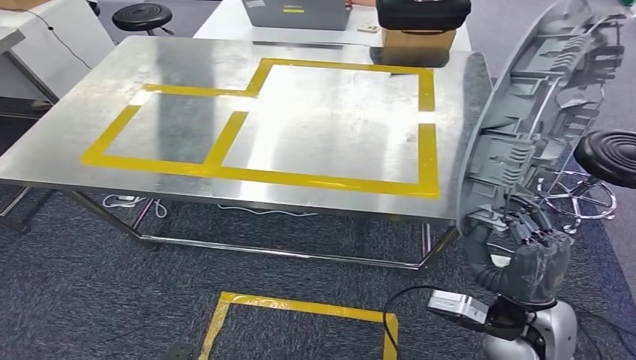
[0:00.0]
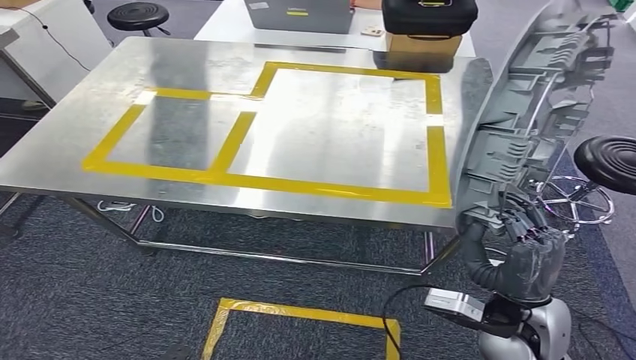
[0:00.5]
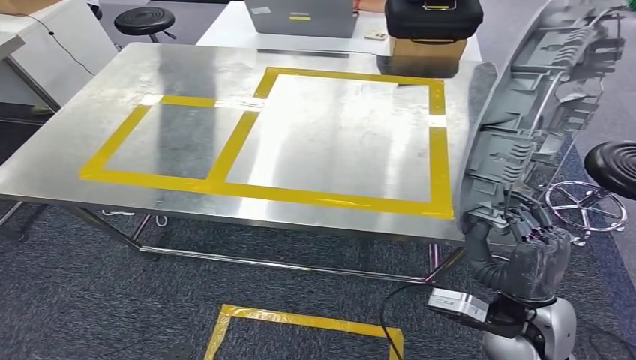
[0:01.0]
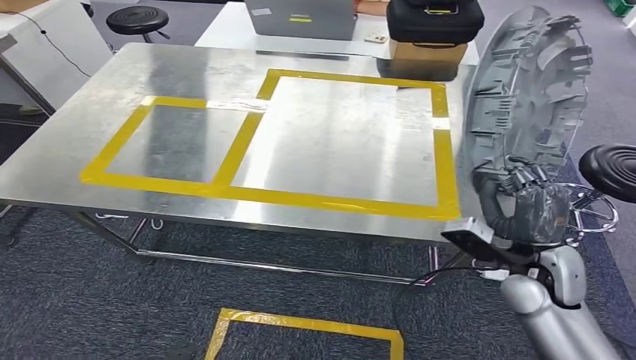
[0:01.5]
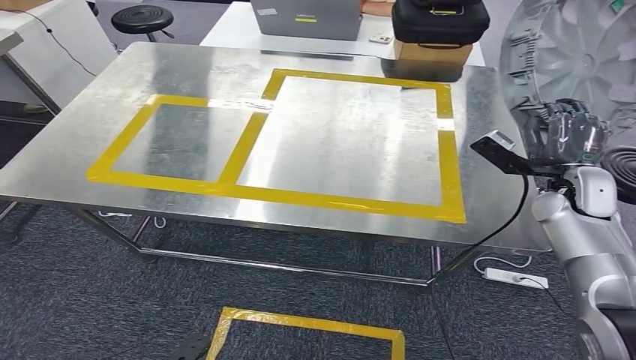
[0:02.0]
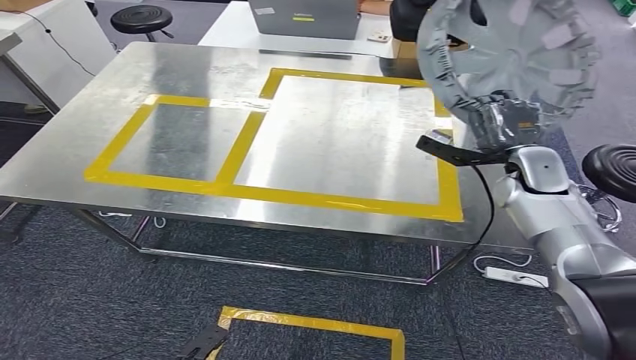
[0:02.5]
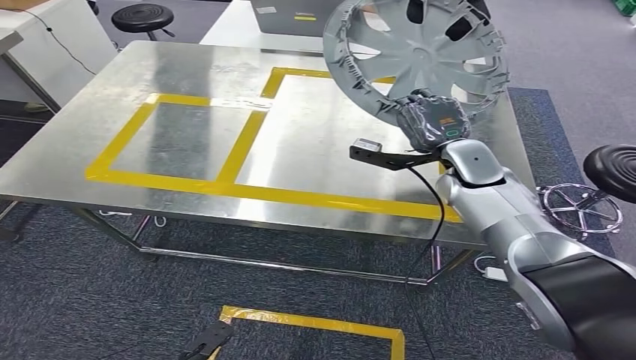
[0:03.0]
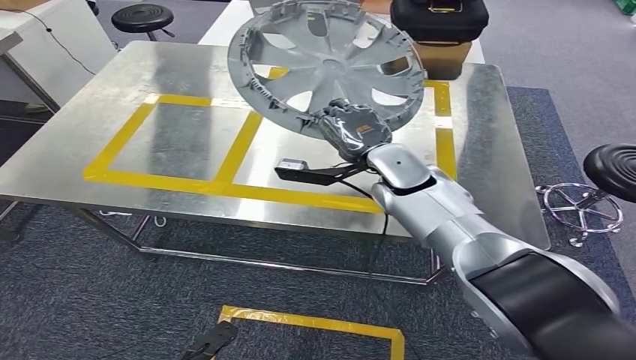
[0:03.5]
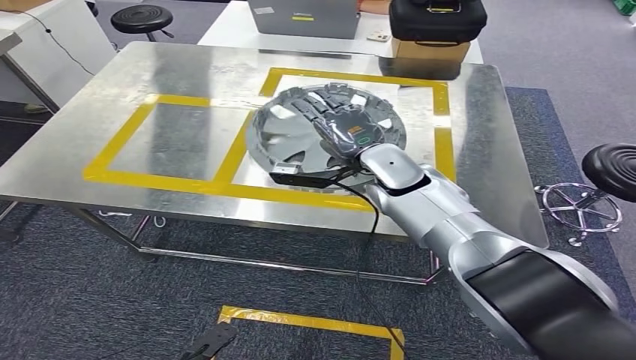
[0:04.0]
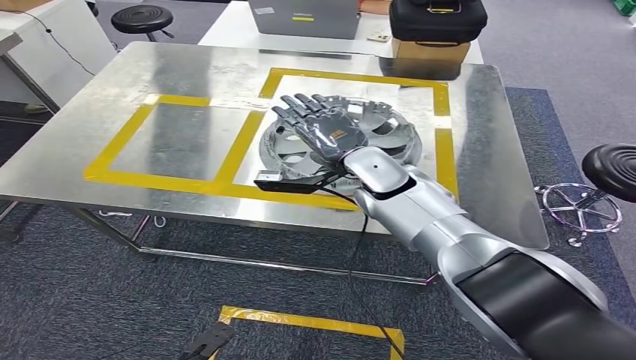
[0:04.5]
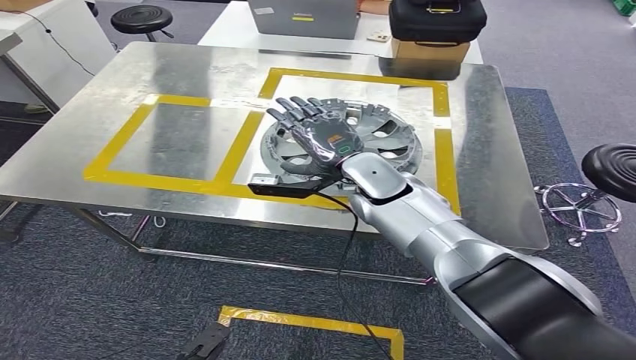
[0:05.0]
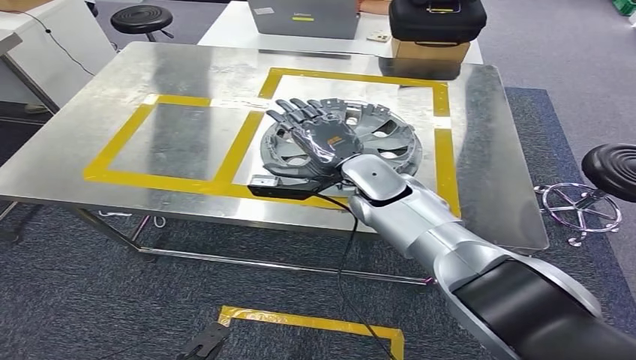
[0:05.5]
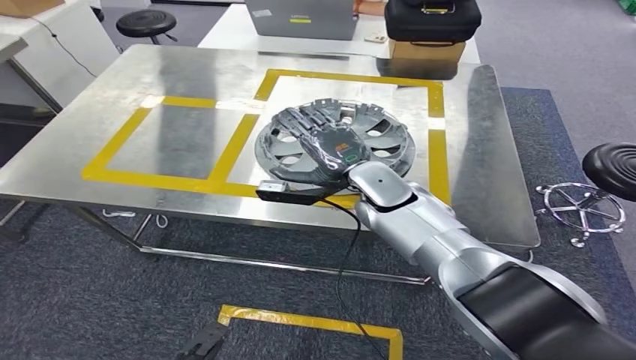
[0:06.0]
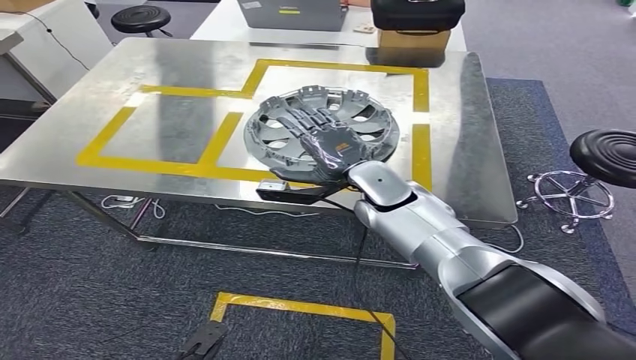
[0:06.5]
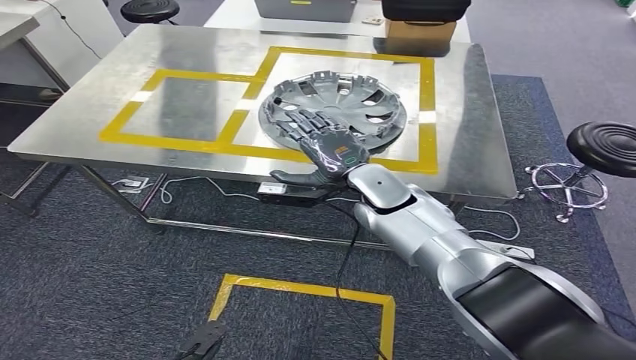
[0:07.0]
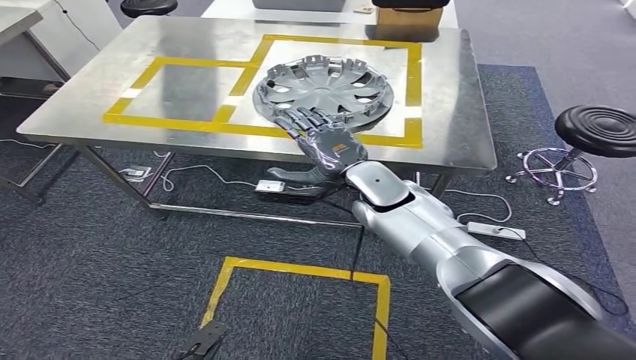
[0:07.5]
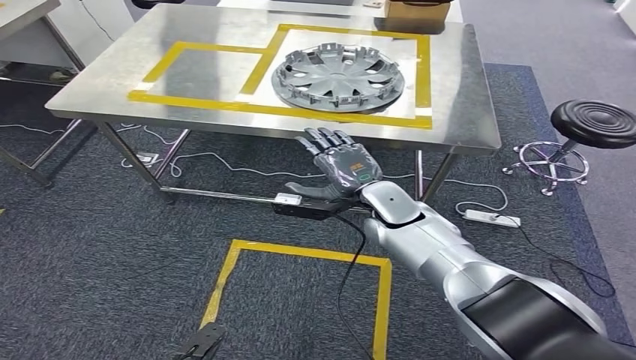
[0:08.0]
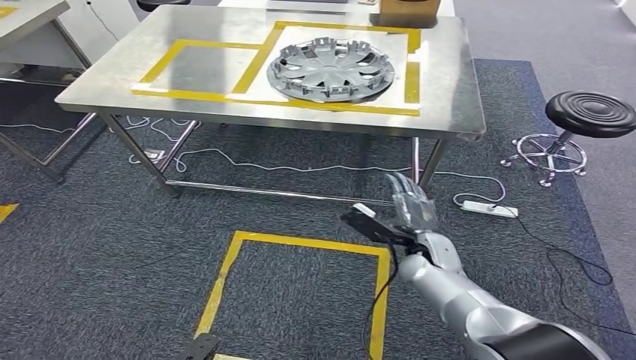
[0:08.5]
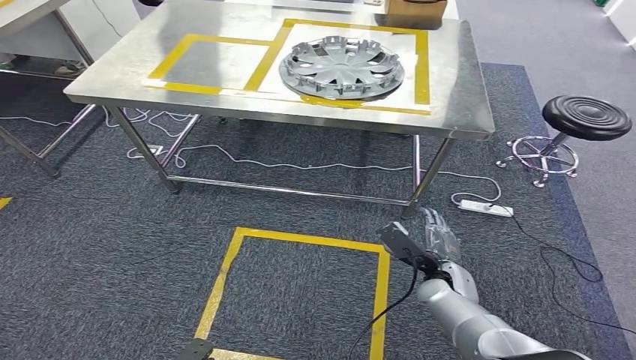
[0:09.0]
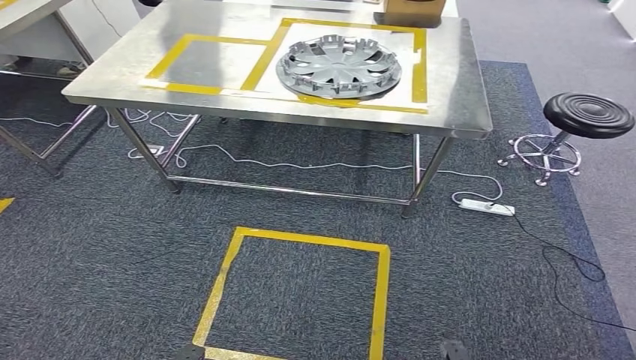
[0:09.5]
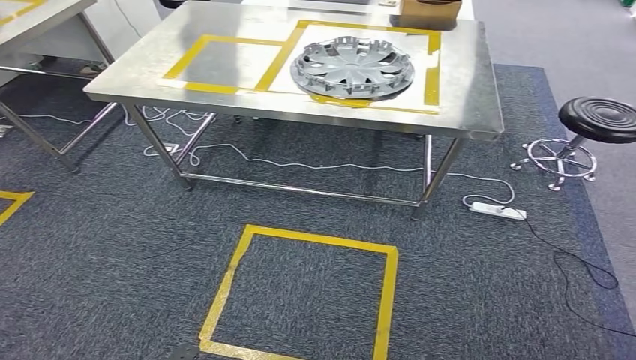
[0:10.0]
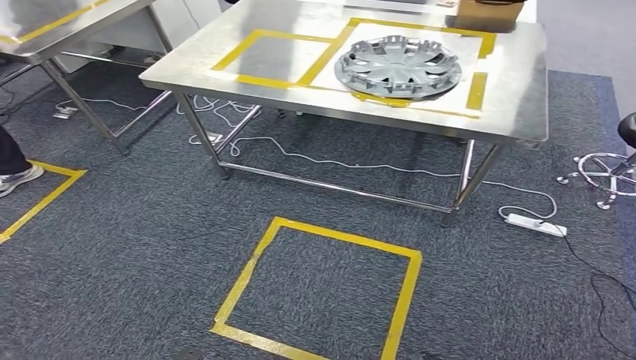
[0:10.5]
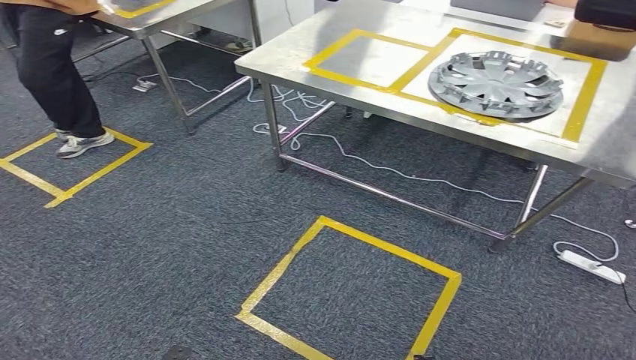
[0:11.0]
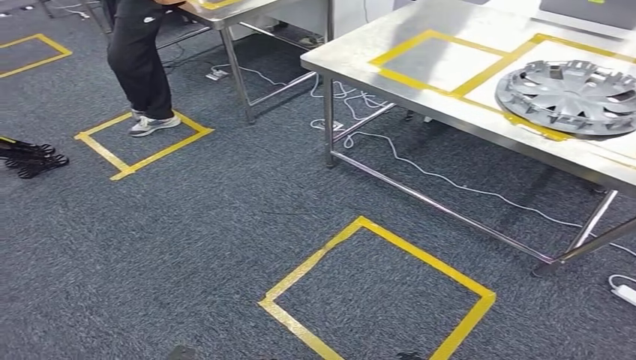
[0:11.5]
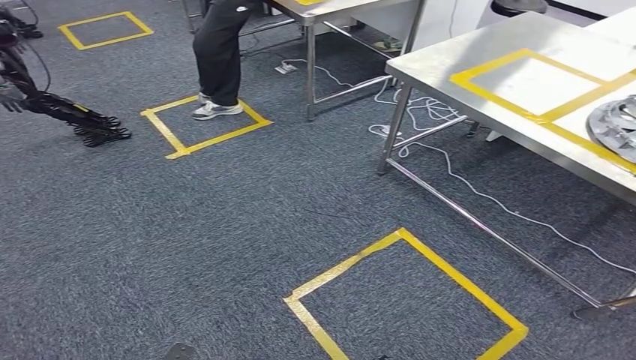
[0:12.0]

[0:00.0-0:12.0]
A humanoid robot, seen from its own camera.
Step, 0:00.0 to 0:02.0: Bring the small component to the front of the workbench.
Step, 0:02.5 to 0:10.5: Insert the small component into the corresponding slot on the workbench.

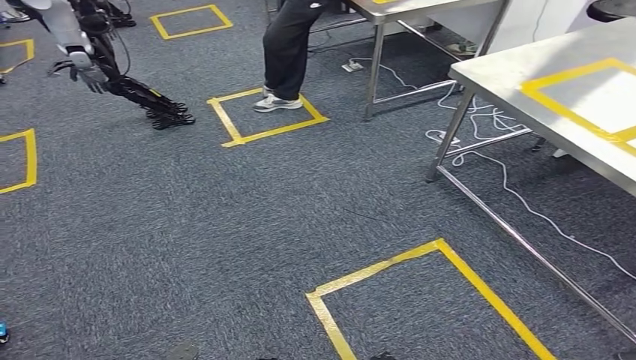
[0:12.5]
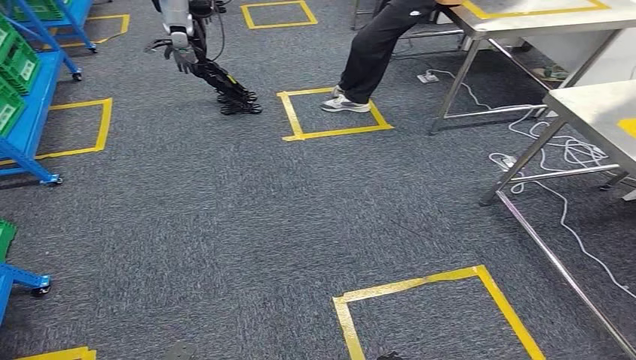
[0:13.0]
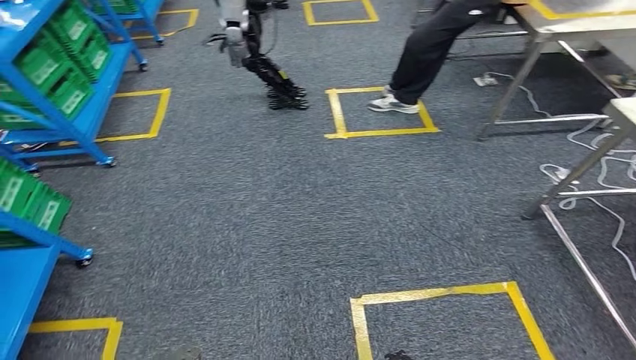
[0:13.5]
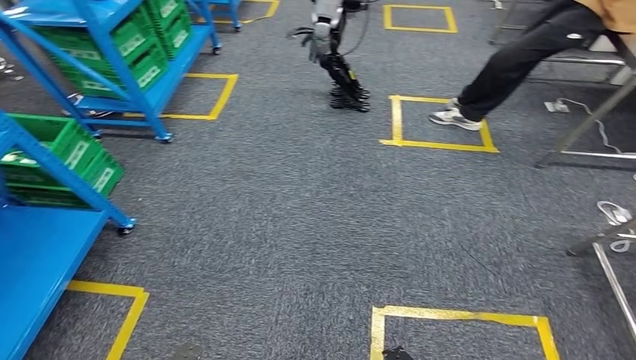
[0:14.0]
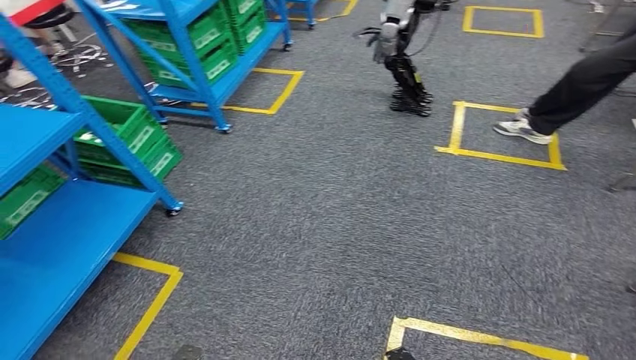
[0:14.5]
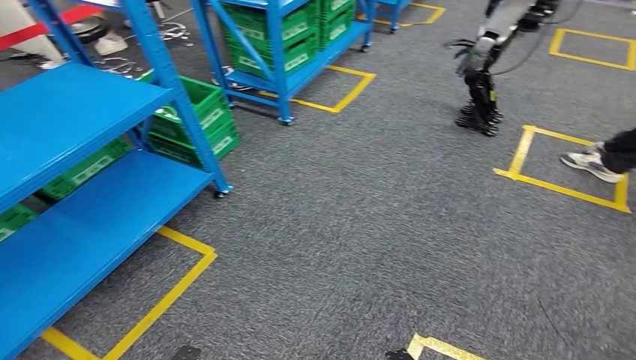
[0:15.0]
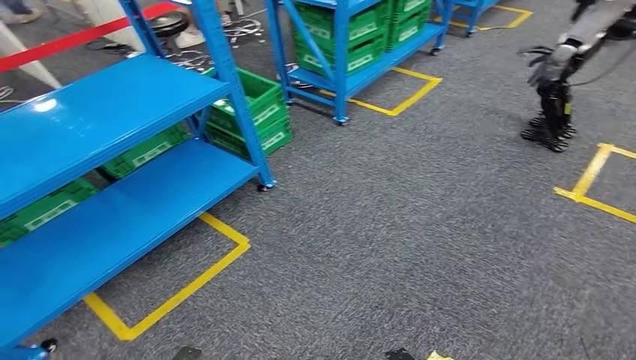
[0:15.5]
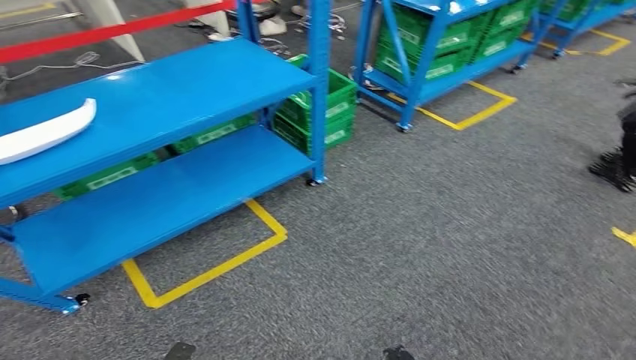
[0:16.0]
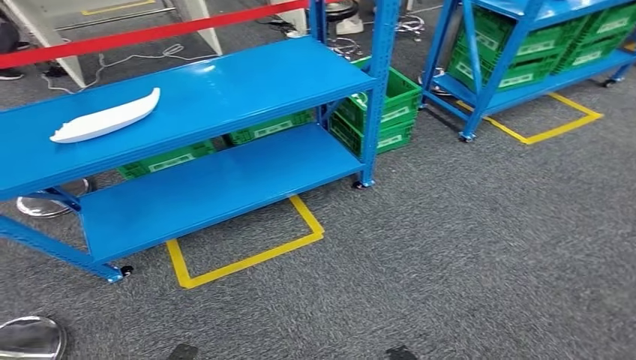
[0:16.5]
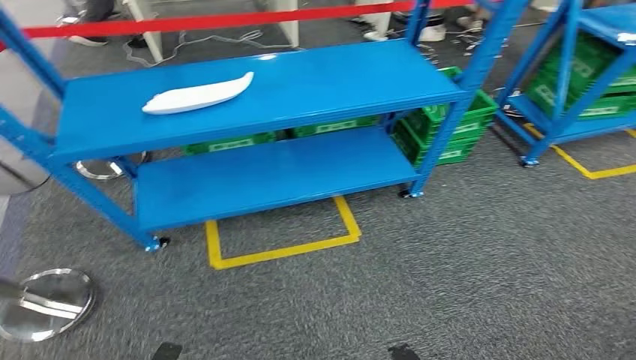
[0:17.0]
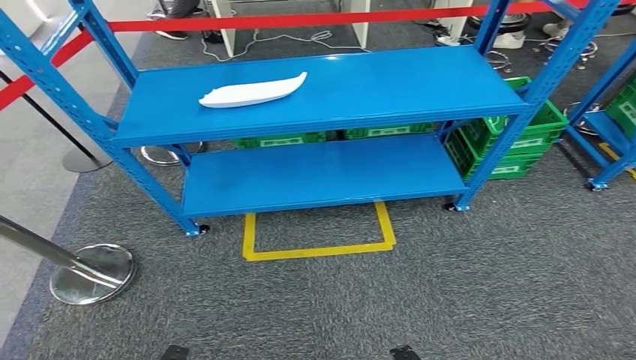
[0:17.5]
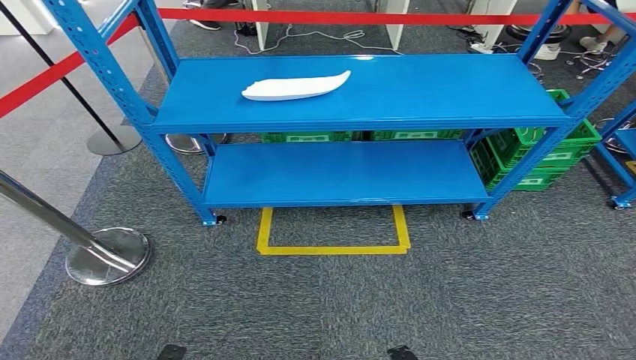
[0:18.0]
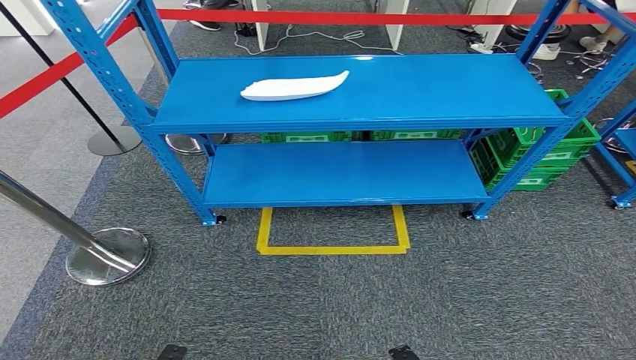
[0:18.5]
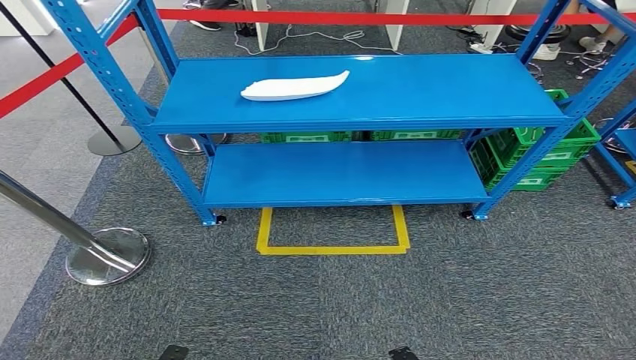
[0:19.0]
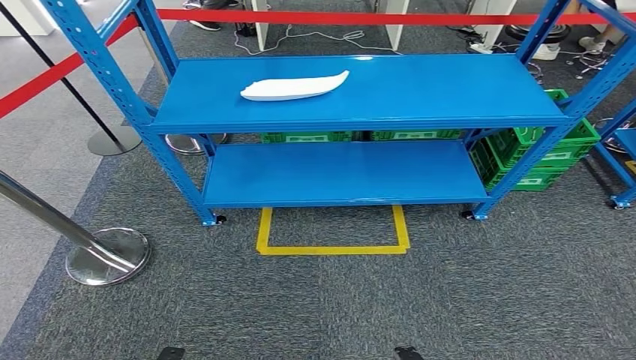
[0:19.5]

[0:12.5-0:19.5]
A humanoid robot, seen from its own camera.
Step, 0:12.5 to 0:19.5: Move to the initial position of the workbench.
